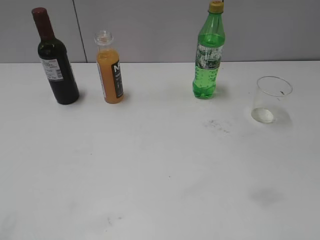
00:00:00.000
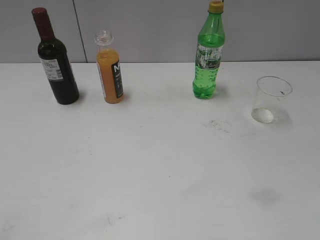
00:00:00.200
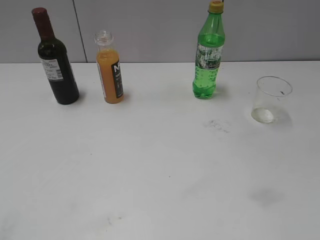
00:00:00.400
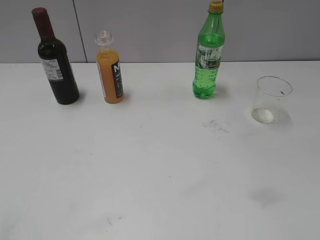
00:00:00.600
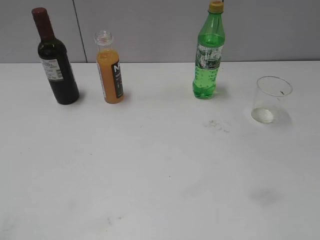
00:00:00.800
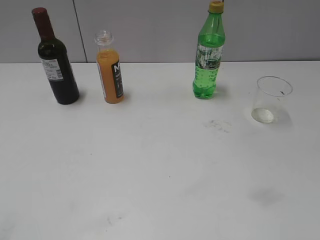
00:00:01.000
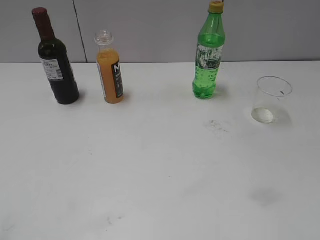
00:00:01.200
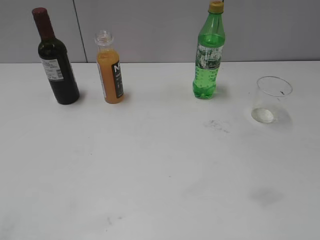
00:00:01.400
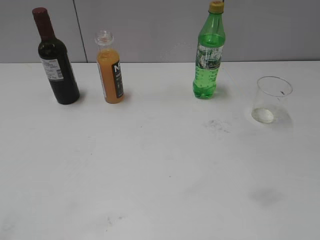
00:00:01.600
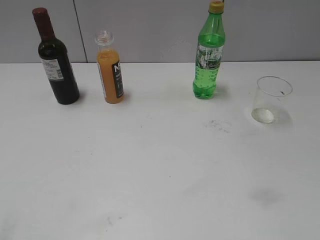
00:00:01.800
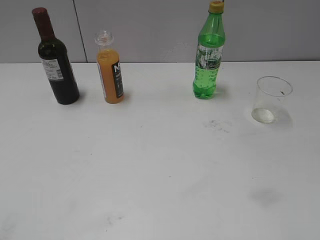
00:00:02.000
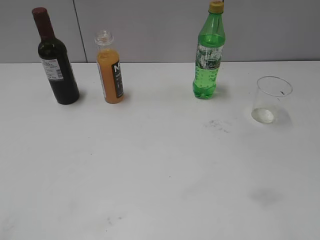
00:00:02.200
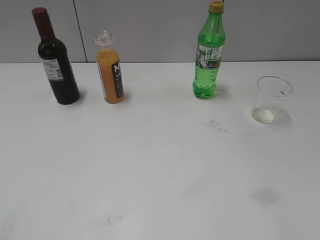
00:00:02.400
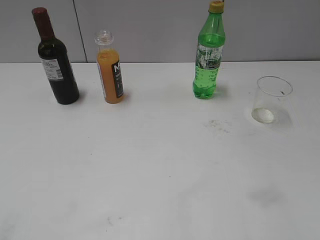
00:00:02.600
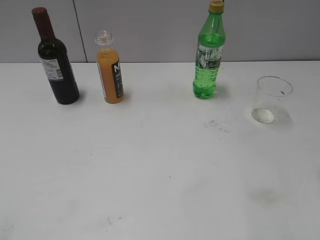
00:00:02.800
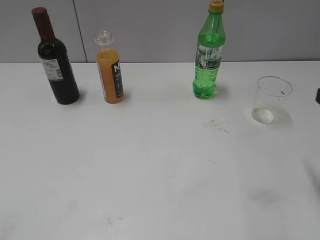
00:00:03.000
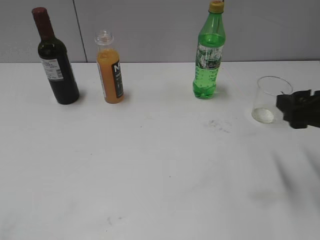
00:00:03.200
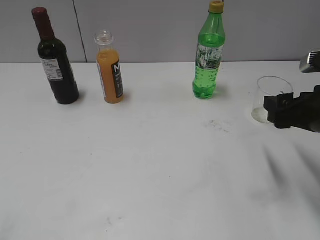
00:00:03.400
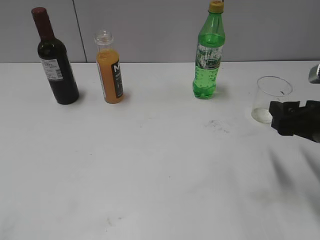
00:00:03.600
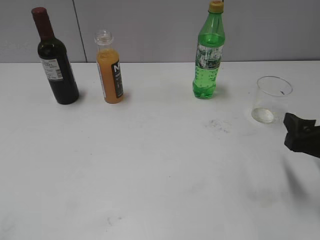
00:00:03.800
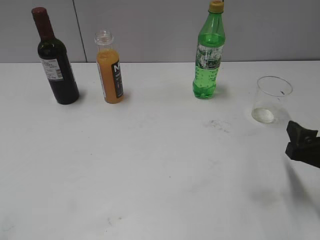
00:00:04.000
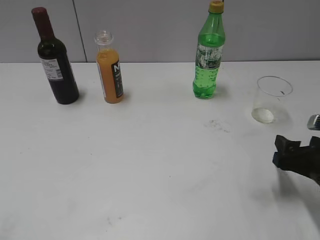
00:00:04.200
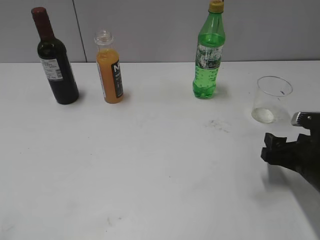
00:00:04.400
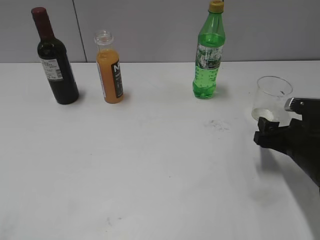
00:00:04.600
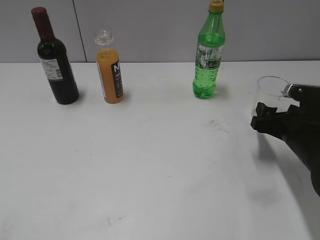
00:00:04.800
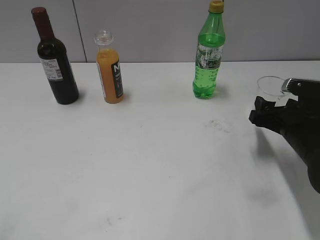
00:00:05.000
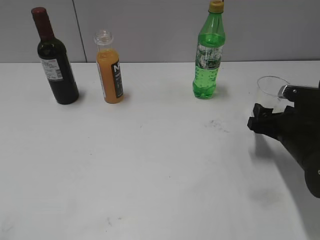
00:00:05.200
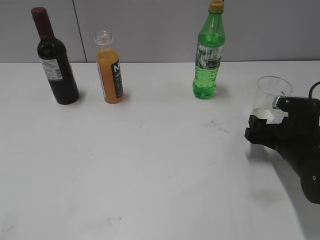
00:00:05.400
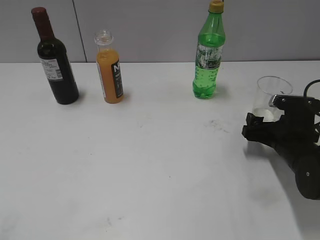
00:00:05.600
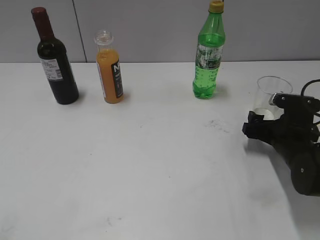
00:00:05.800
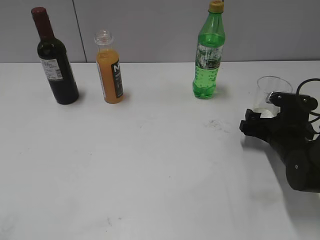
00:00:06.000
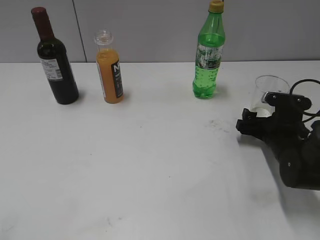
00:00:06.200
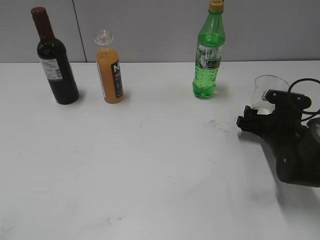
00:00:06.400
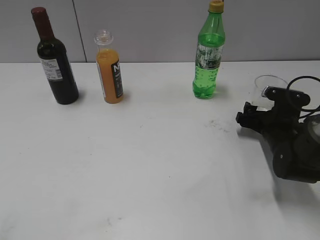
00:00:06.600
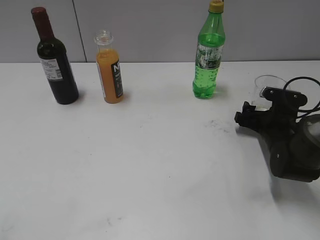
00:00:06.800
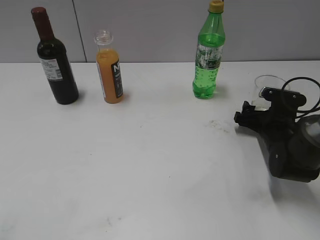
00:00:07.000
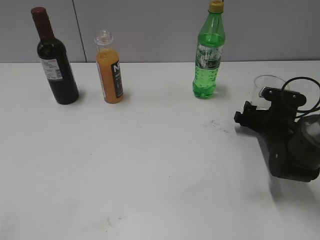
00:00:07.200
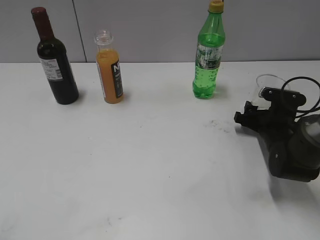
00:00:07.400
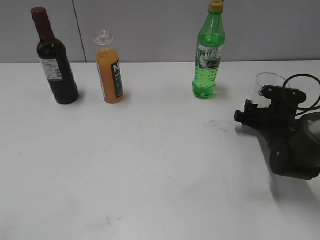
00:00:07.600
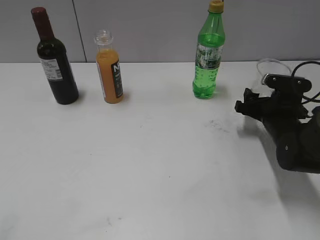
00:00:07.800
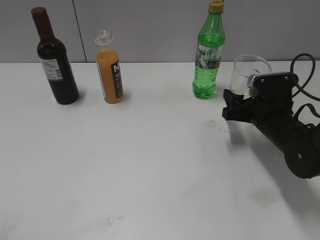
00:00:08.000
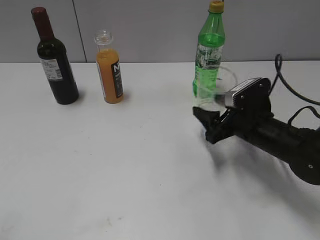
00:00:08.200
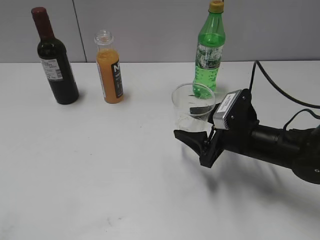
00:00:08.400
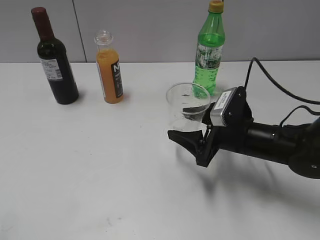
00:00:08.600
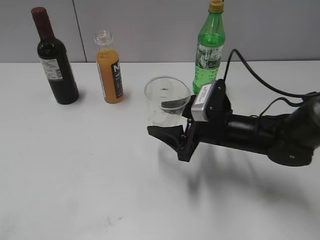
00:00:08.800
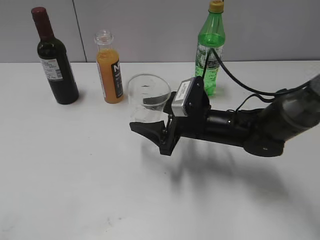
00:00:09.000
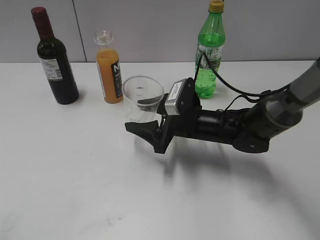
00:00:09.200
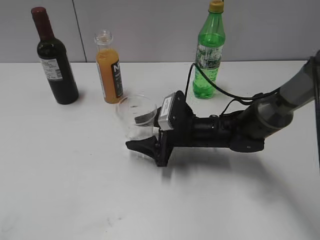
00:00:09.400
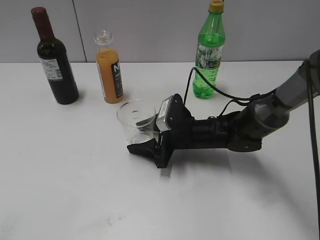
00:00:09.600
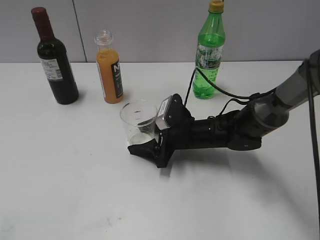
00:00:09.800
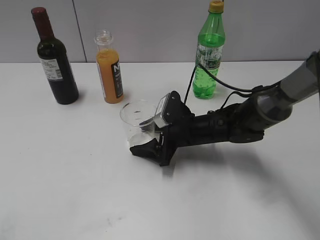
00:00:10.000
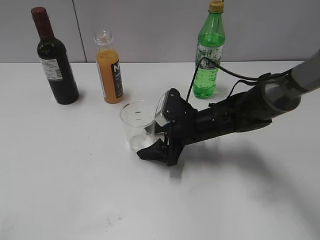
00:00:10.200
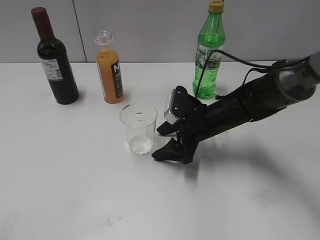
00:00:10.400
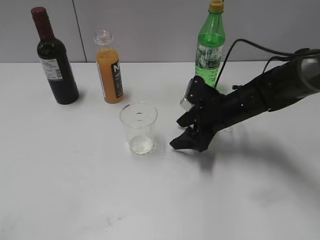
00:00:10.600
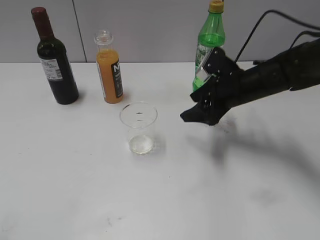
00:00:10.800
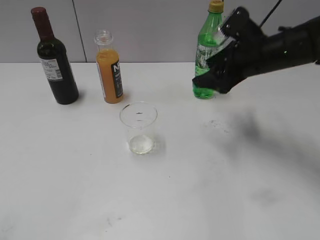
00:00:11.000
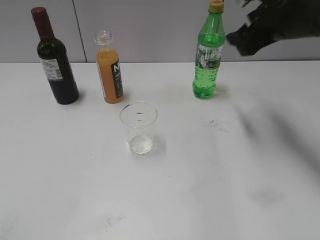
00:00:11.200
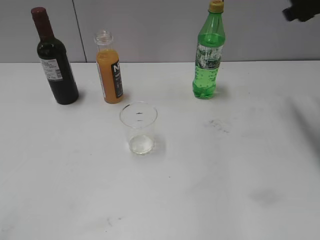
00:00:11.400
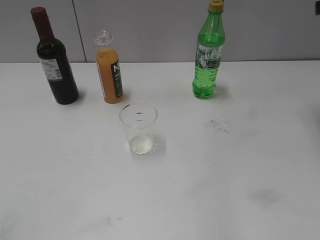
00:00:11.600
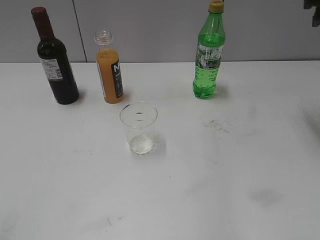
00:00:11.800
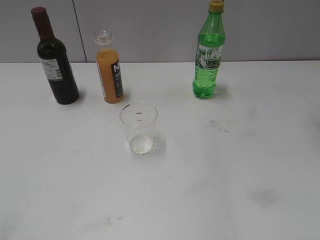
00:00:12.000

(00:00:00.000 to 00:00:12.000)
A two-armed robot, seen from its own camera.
Step, 00:00:03.000 - 00:00:07.400: Grasp the transparent cup with right gripper.
Step, 00:00:07.600 - 00:00:10.200: Place the transparent cup on the table with right gripper.
00:00:03.000 - 00:00:04.400: The right gripper shifts roughly 15 cm downward.
00:00:04.400 - 00:00:06.000: The right gripper travels forward by some 10 cm, and opens.
00:00:06.000 - 00:00:07.600: The right gripper closes.
00:00:07.600 - 00:00:09.000: The right gripper heads to the left, covering roughly 15 cm.
00:00:09.000 - 00:00:10.400: The right gripper opens its fingers.
00:00:10.400 - 00:00:12.000: The right gripper goes approximately 35 cm upward and to the right, and closes.

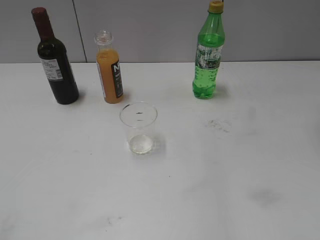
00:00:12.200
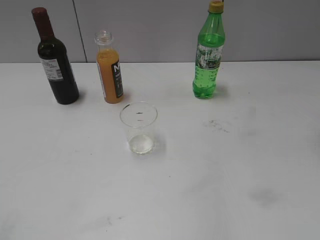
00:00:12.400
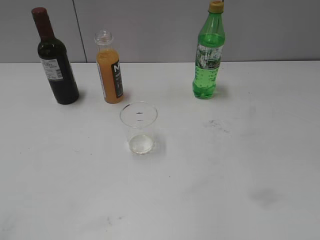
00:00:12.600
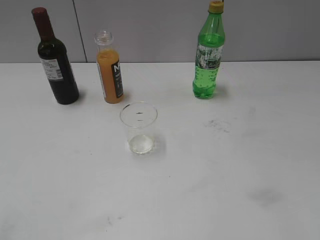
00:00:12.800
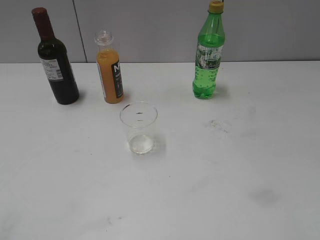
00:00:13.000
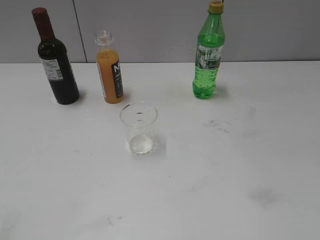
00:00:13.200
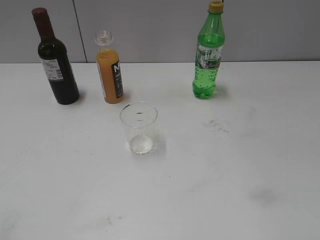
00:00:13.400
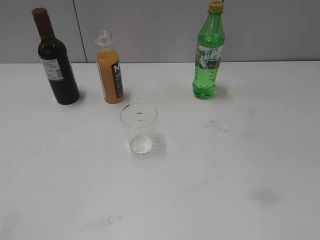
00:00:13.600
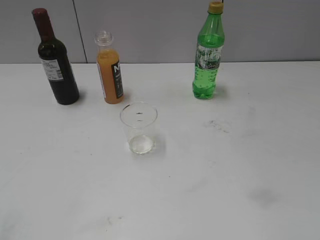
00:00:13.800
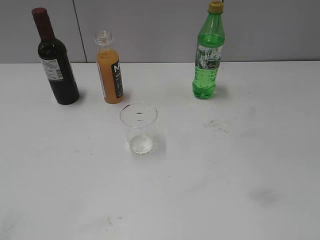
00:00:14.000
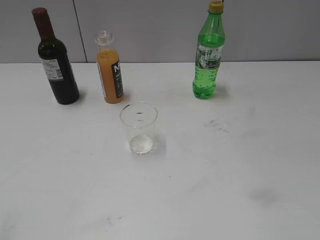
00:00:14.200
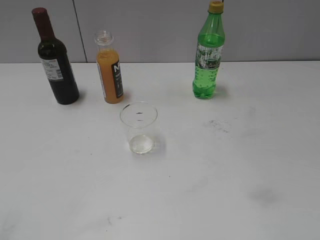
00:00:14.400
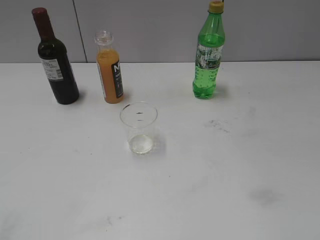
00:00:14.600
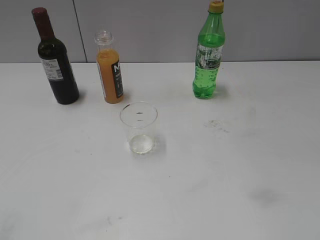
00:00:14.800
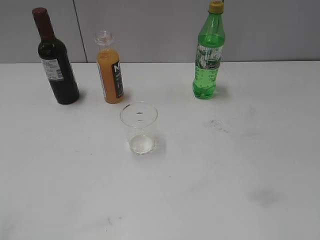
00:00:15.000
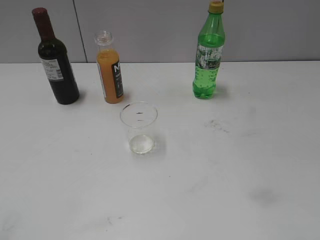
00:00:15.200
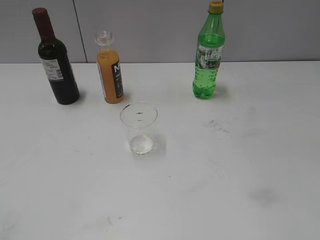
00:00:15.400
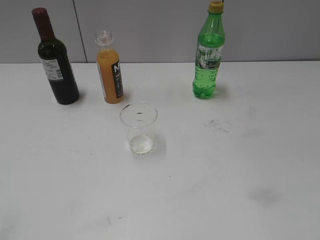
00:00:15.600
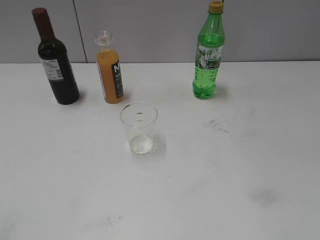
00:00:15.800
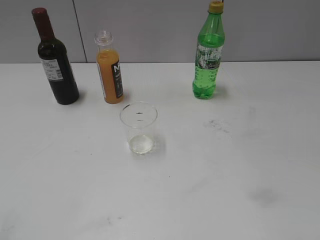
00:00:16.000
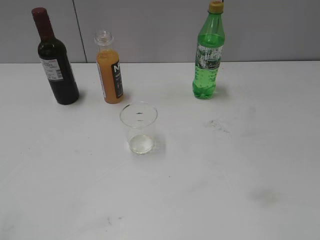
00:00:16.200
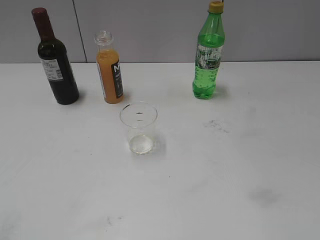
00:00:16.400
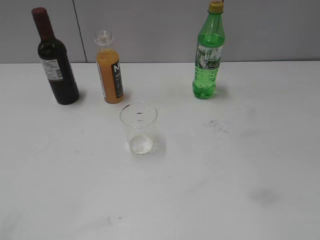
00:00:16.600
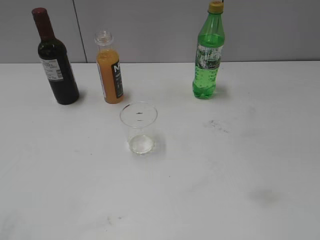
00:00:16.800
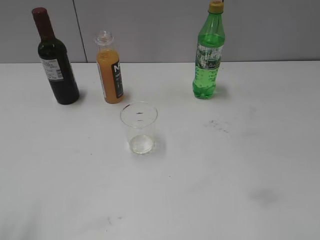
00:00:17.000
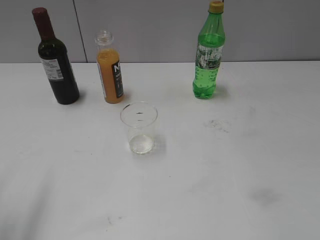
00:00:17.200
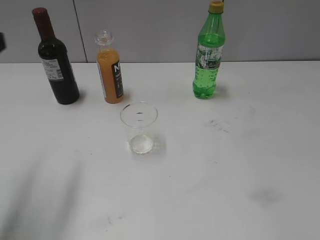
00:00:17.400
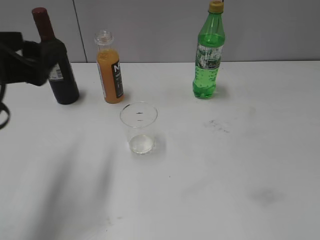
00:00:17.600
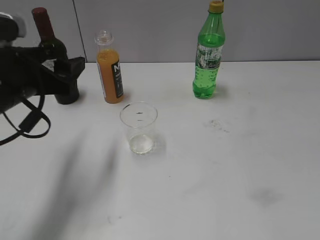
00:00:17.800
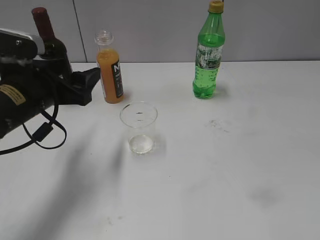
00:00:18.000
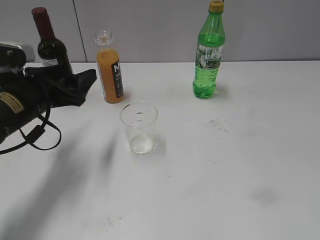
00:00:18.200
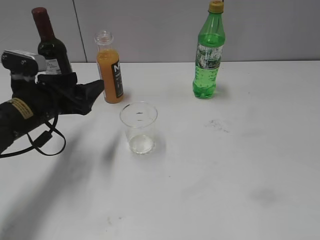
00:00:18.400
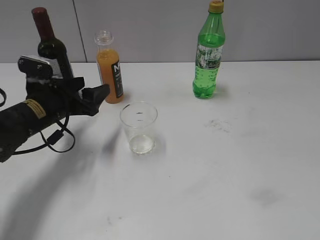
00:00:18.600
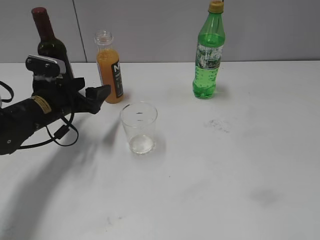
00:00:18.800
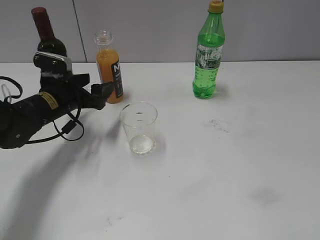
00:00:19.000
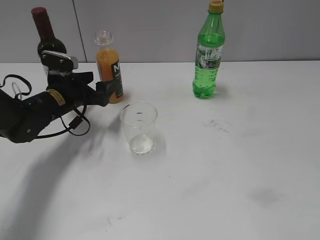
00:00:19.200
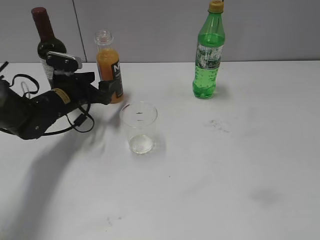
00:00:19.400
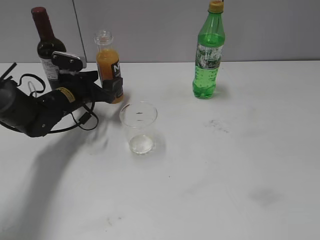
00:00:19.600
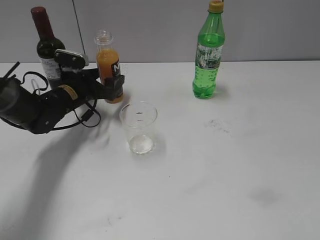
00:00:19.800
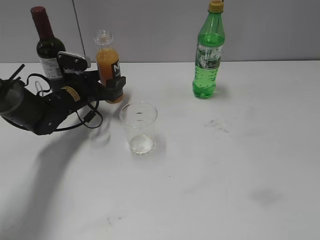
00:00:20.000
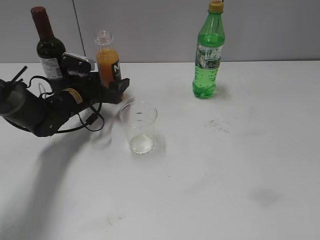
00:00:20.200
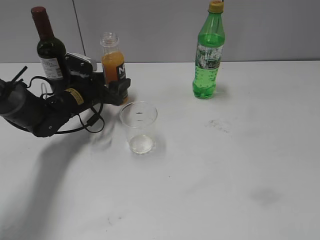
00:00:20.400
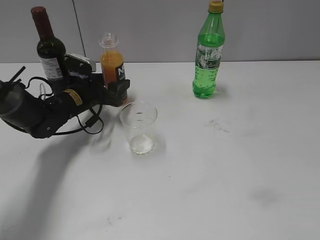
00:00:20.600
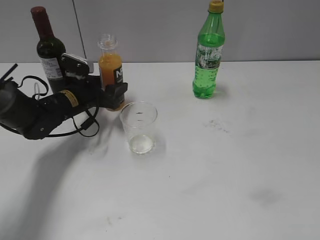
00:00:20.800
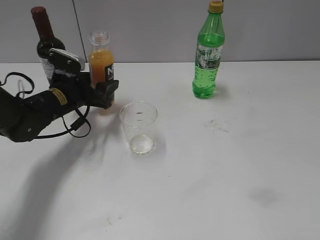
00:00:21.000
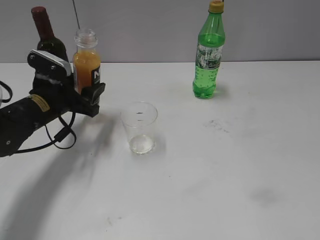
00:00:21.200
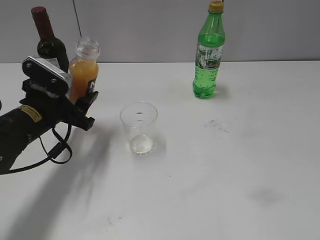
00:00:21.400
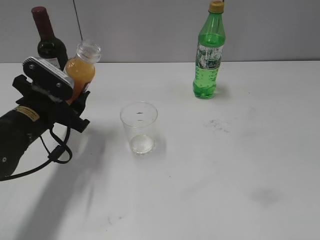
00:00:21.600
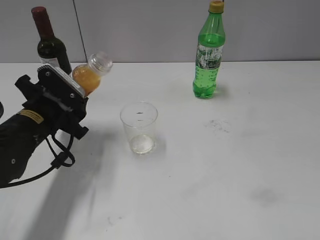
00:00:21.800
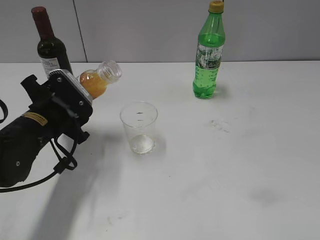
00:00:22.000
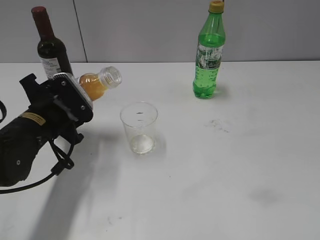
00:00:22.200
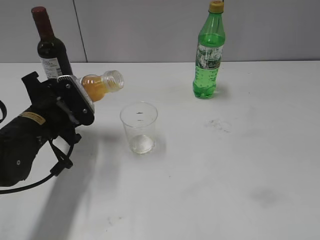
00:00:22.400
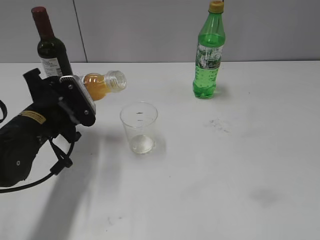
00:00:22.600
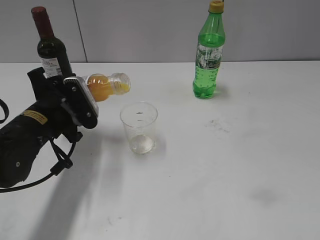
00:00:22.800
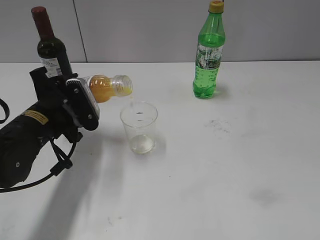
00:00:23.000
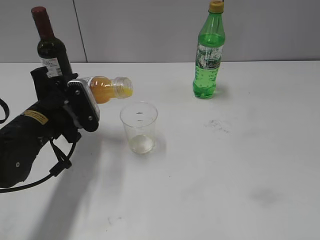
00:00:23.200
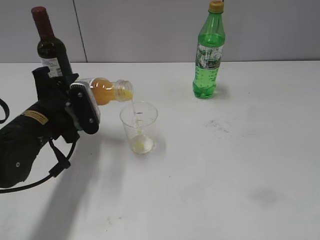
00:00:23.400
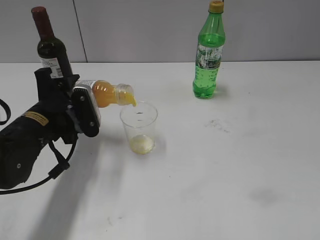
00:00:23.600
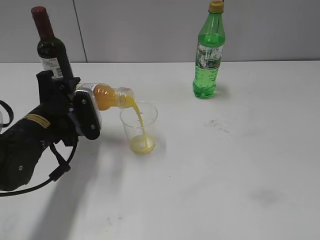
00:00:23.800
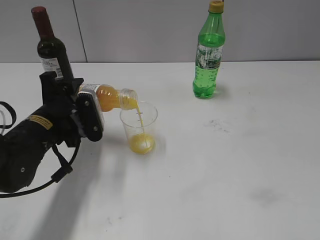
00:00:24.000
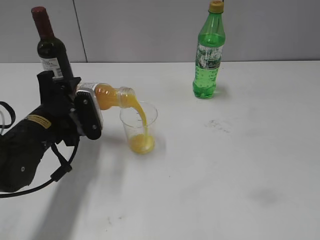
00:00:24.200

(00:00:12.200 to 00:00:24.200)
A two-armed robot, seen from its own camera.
Step, 00:00:12.200 - 00:00:20.600: Grasp the bottle with orange juice with left gripper.
00:00:15.200 - 00:00:16.600: Both grippers stay about where they are.
00:00:16.600 - 00:00:18.200: The left gripper is displaced forward and downward by some 30 cm.
00:00:18.200 - 00:00:19.800: The left gripper travels forward and downward by approximately 15 cm.
00:00:19.800 - 00:00:21.200: The left gripper travels backward by about 10 cm, and closes its fingers.
00:00:21.200 - 00:00:22.600: The left gripper heads backward, covering some 5 cm.
00:00:22.600 - 00:00:24.200: The grippers move only a little.
